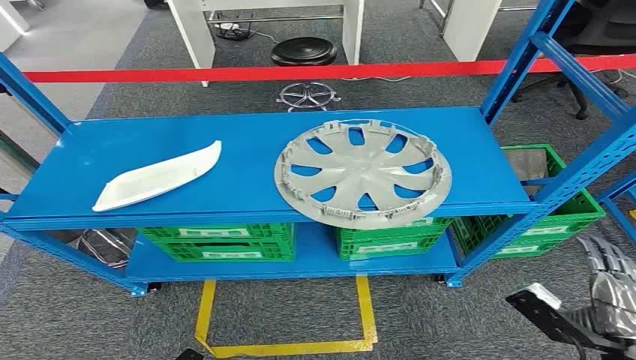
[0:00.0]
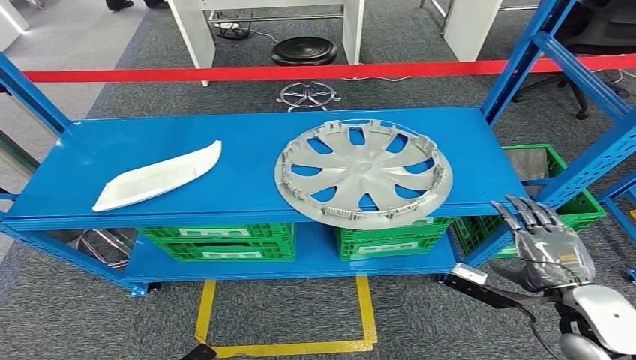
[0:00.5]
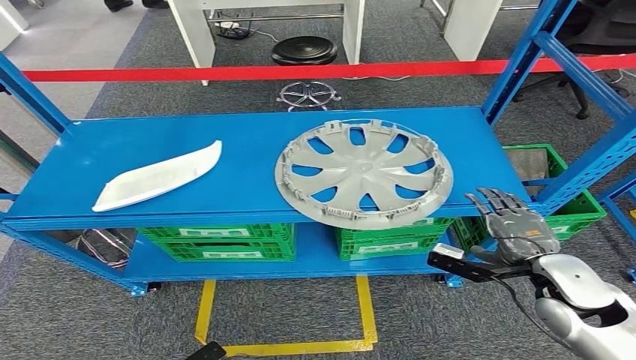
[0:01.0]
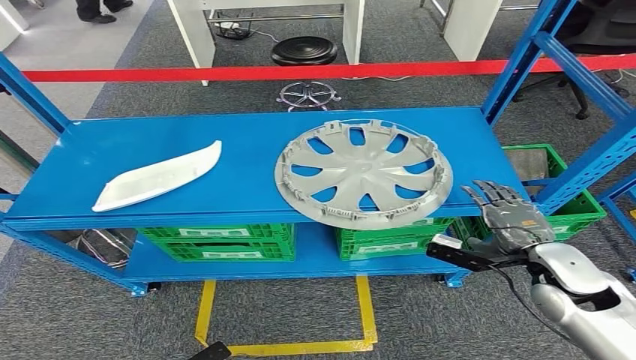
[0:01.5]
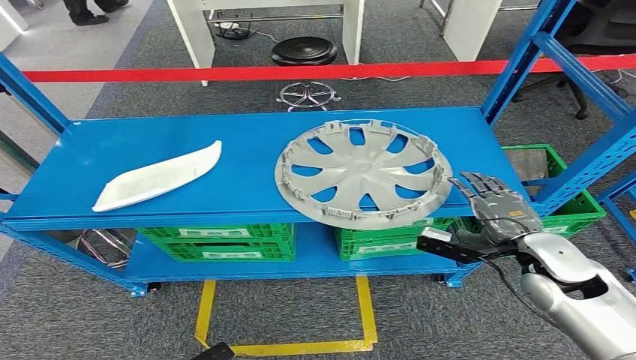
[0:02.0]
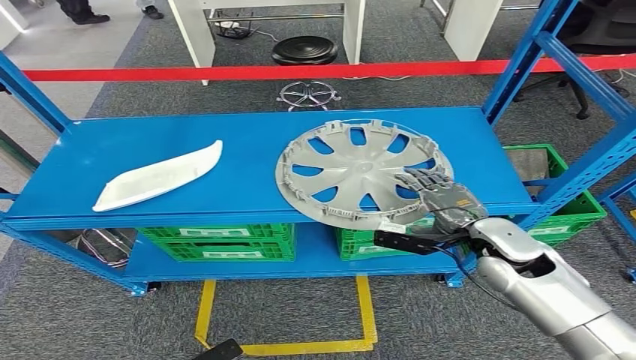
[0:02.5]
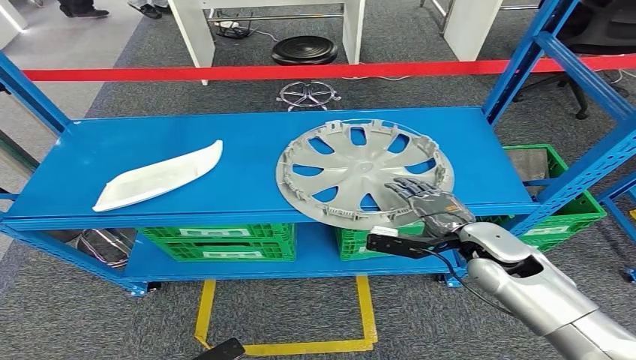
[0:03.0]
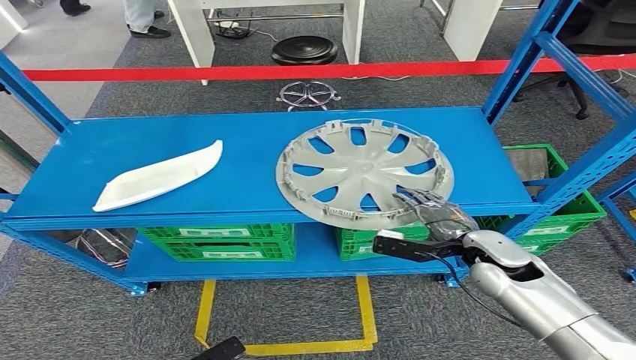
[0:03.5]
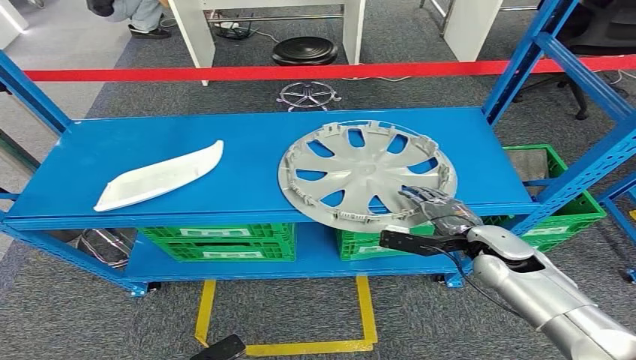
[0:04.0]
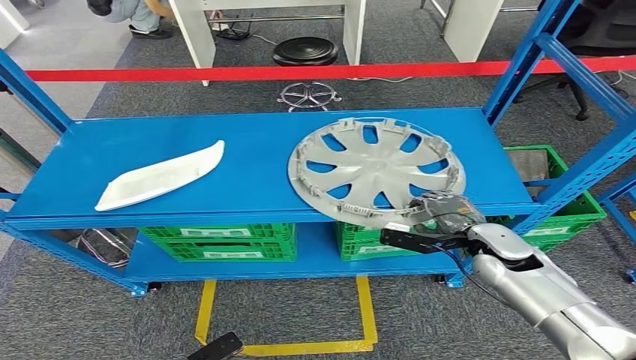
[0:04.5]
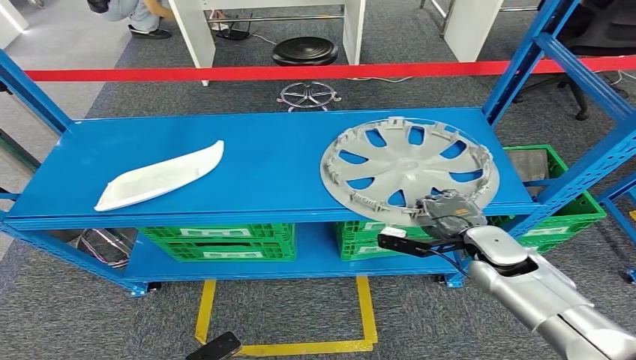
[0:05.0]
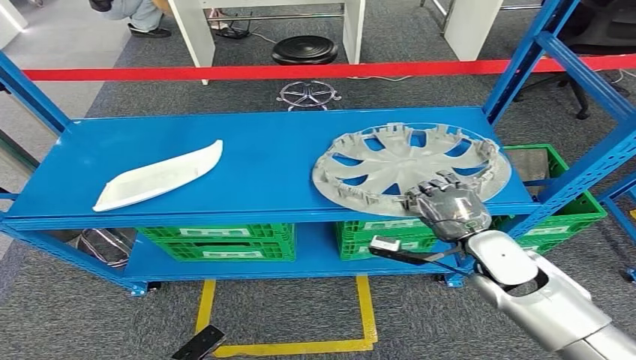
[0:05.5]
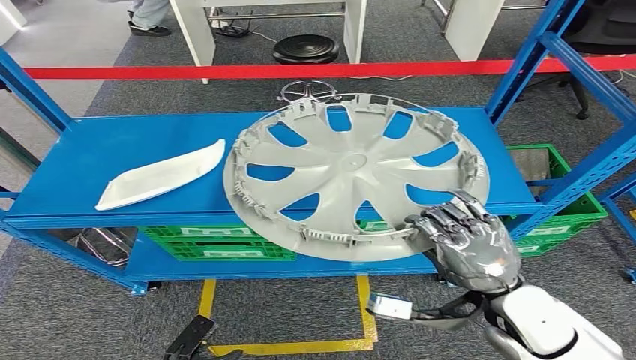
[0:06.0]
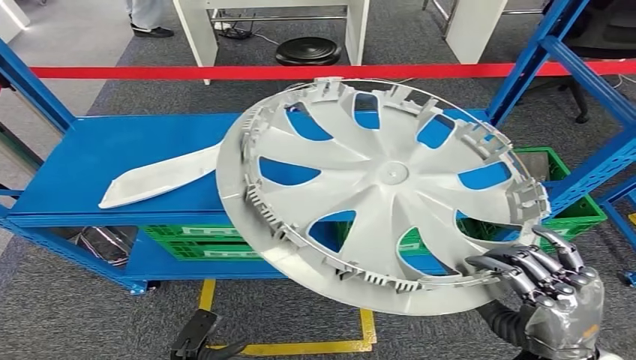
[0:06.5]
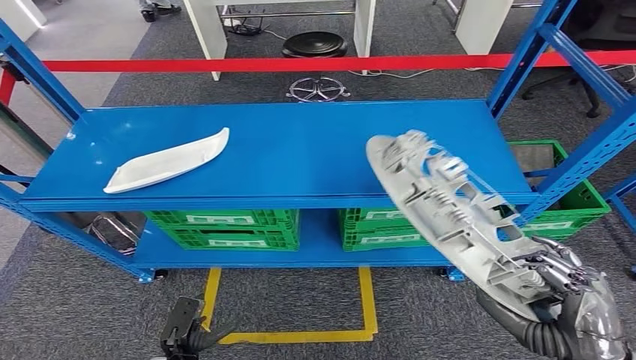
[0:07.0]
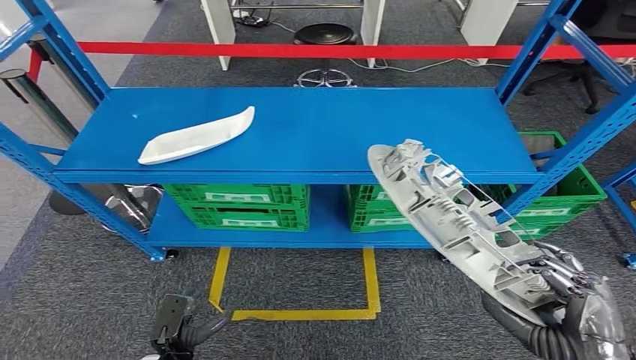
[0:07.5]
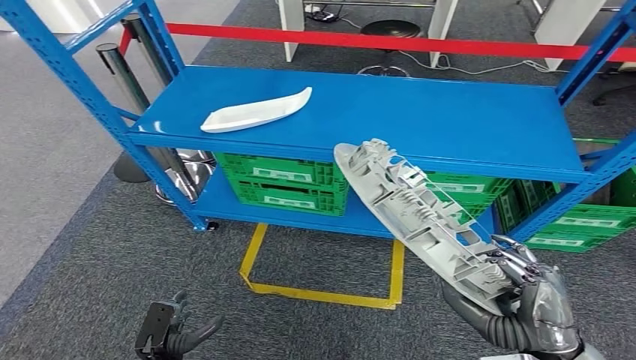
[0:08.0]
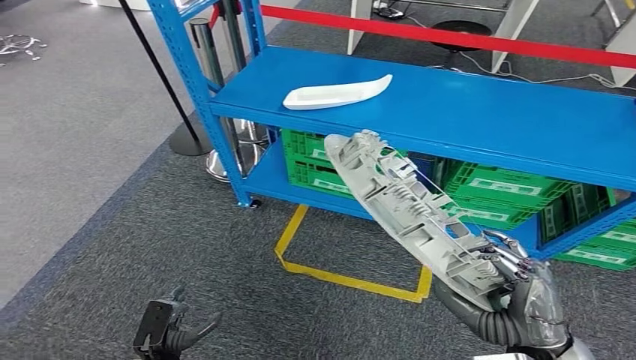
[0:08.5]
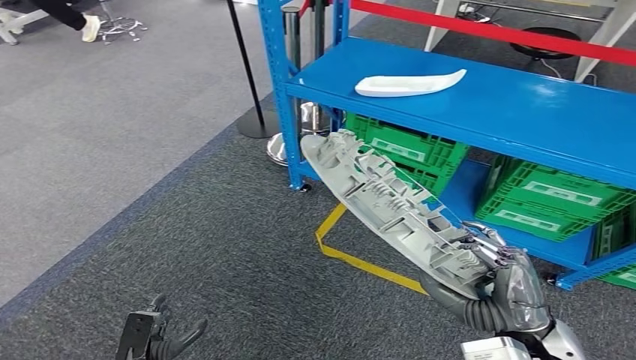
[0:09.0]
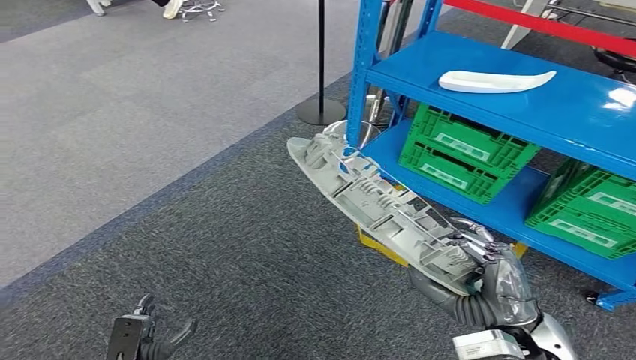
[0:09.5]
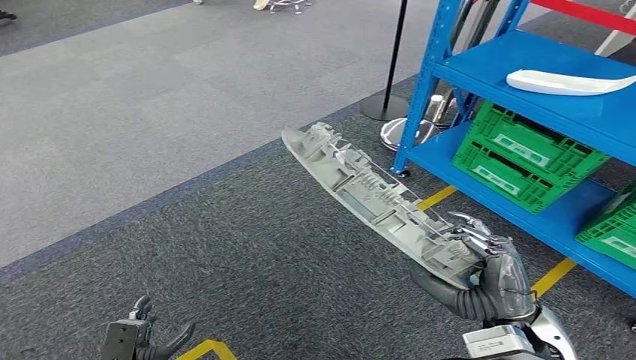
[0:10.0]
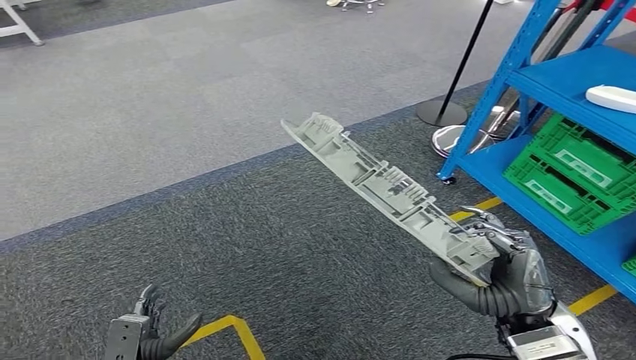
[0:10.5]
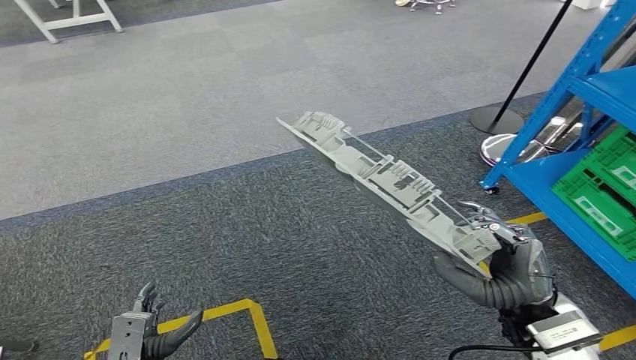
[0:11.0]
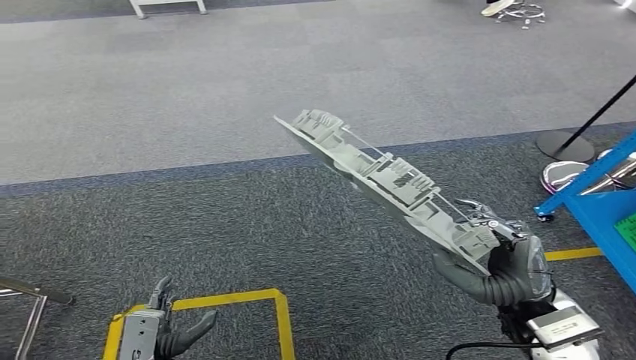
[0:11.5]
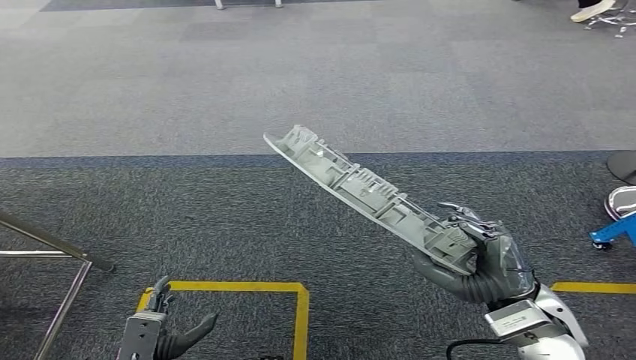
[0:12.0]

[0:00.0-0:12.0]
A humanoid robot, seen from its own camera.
Step, 0:00.0 to 0:06.0: Pick up the small parts from the shelf.
0:02.0 to 0:04.0: The right hand shifts by roughly 10 cm.

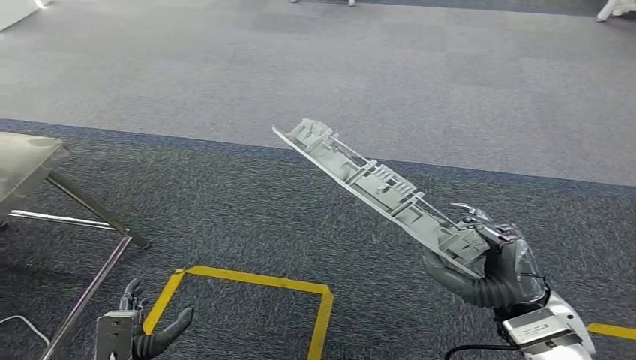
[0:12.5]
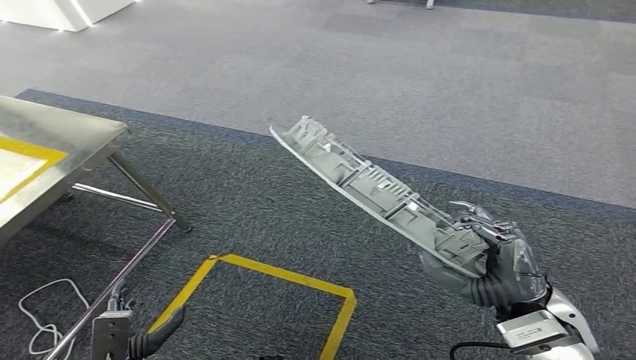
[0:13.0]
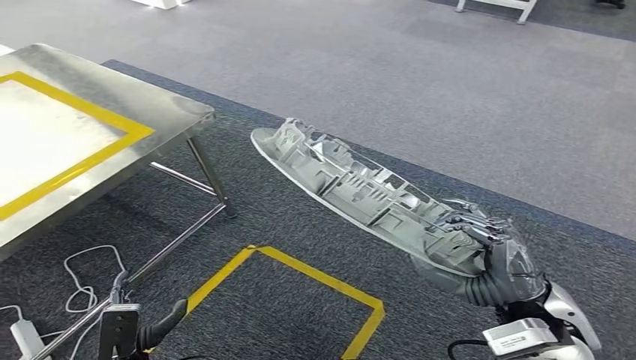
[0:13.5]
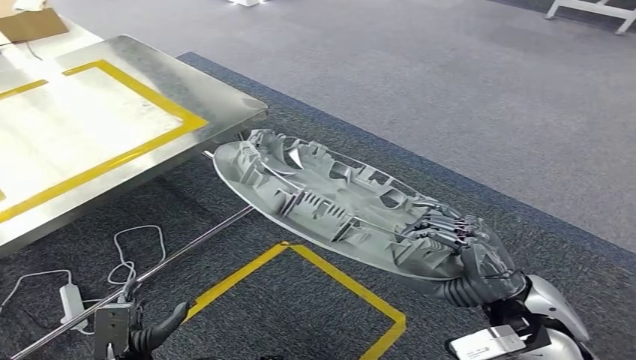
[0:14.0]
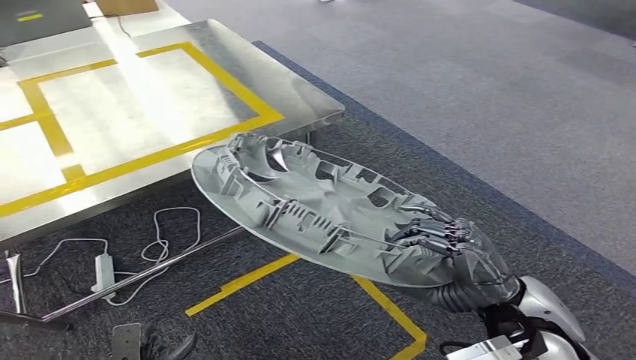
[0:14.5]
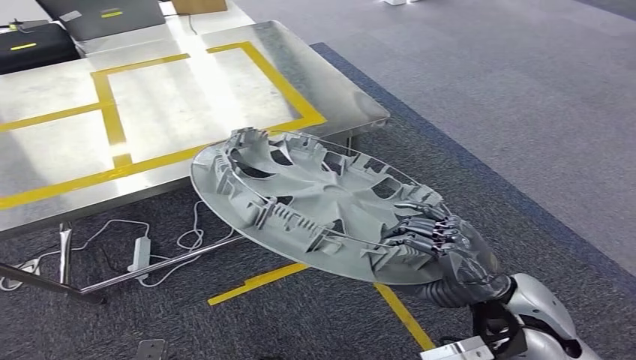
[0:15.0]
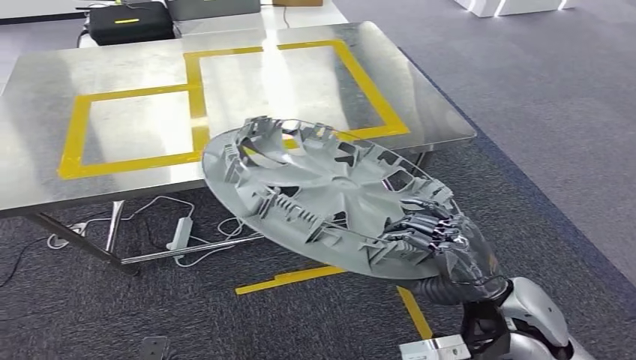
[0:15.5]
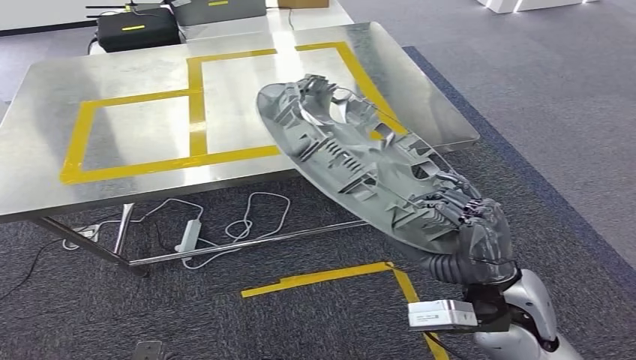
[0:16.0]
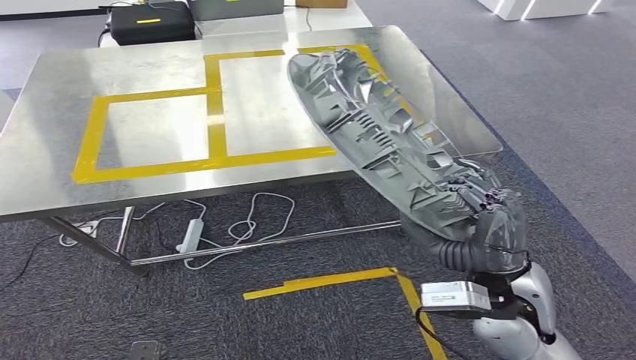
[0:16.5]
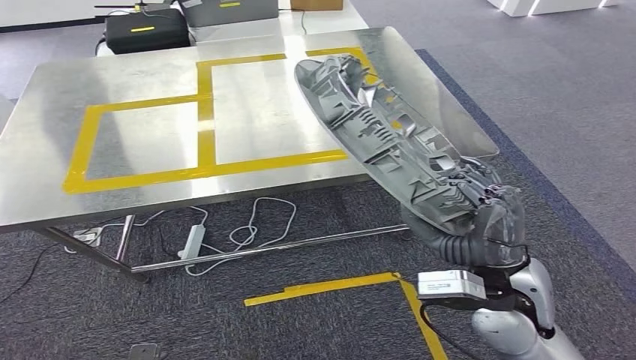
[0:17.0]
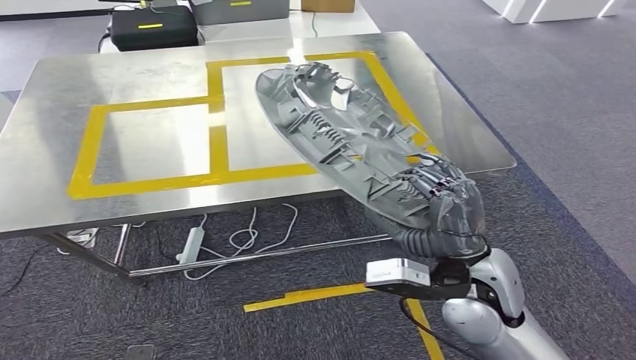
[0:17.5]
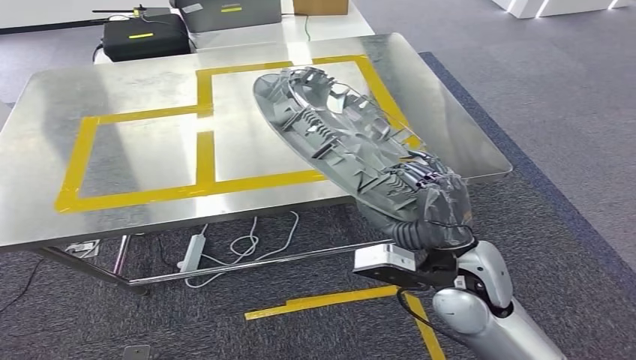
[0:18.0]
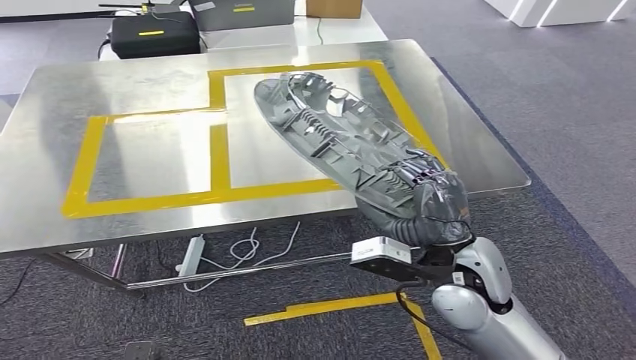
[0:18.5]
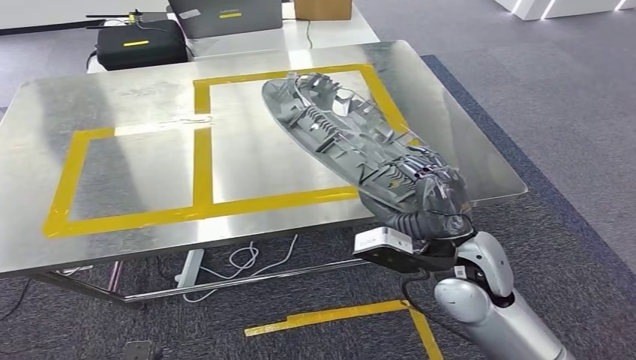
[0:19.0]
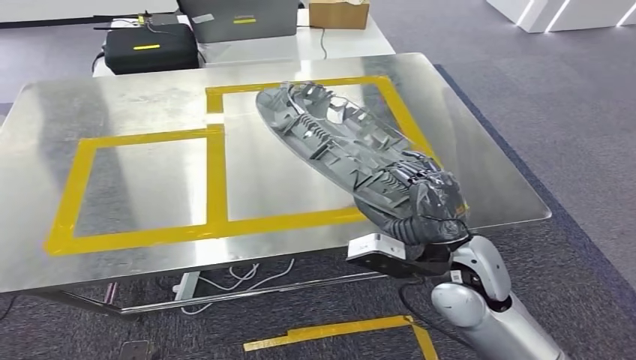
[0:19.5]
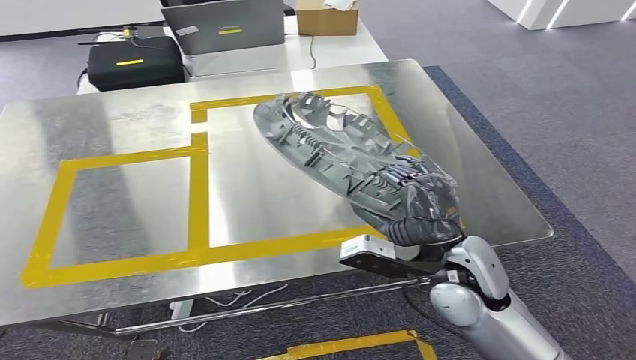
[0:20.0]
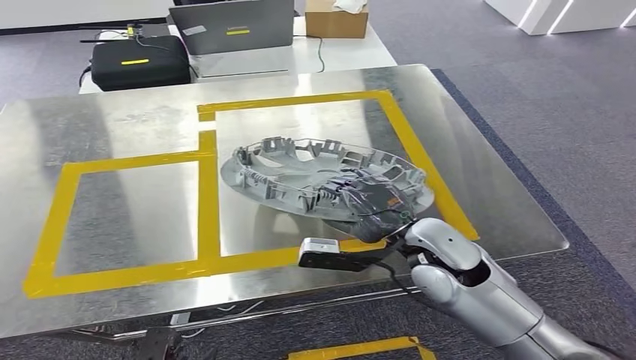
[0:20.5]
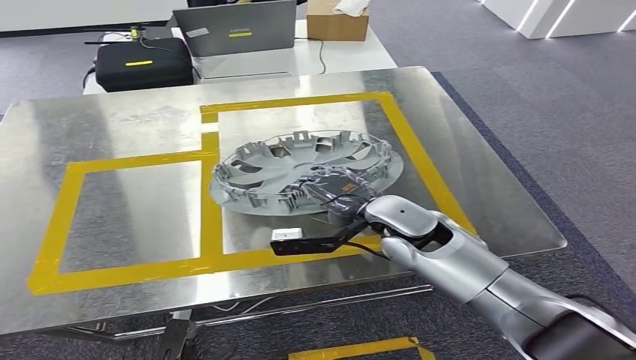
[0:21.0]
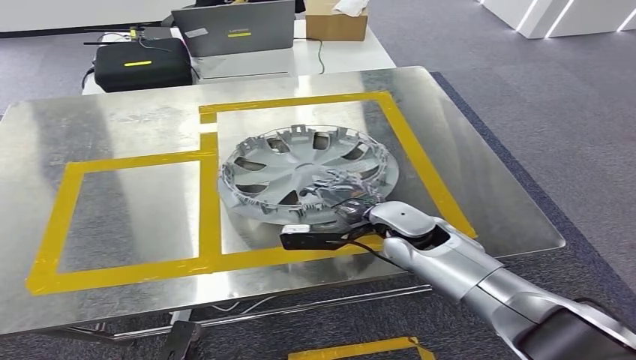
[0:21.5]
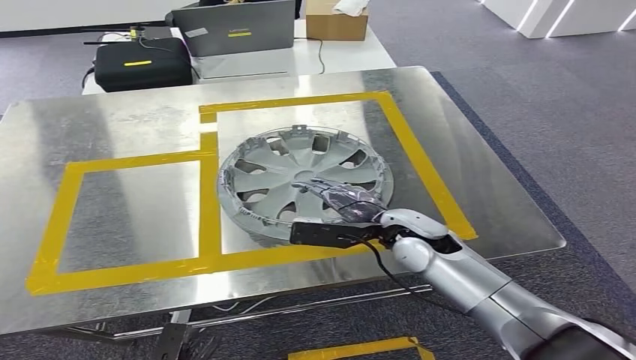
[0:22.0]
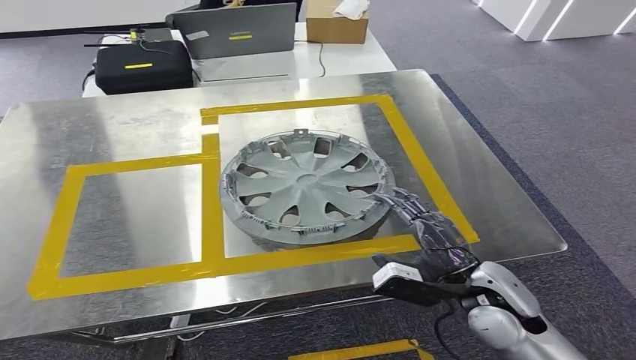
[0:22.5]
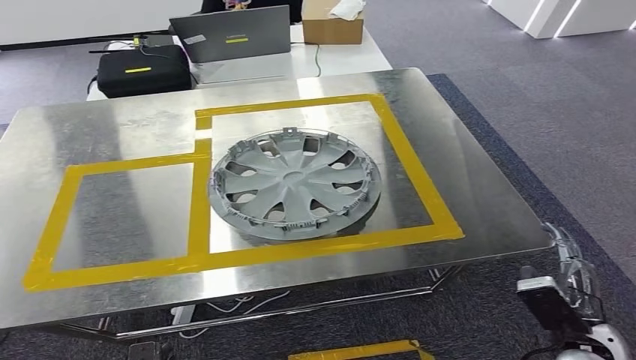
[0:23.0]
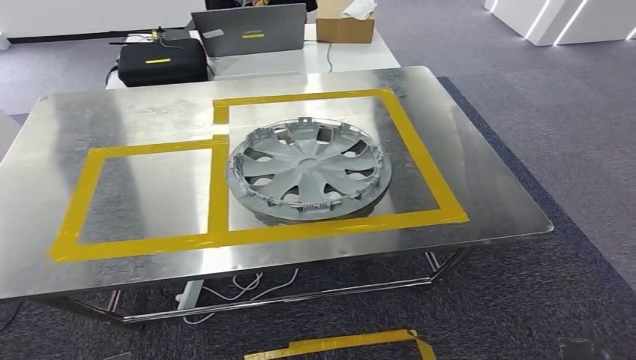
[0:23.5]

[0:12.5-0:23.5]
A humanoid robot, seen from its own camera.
Step, 0:12.5 to 0:17.0: Move the small parts to the workbench.
Step, 0:17.5 to 0:23.0: Insert the small parts into the corresponding holes on the workbench.
